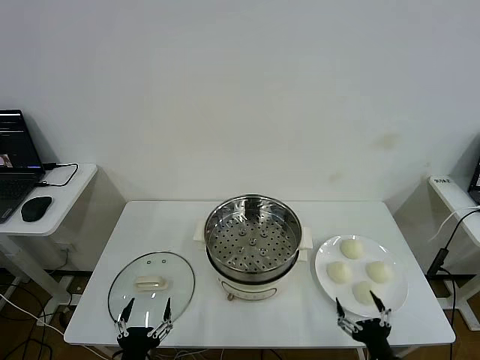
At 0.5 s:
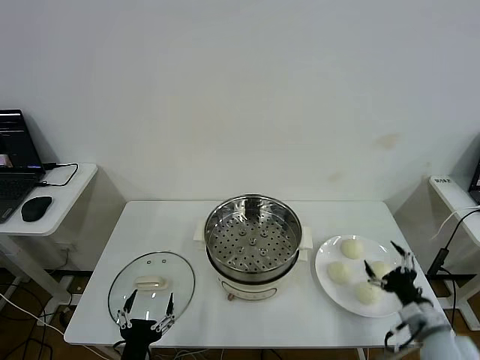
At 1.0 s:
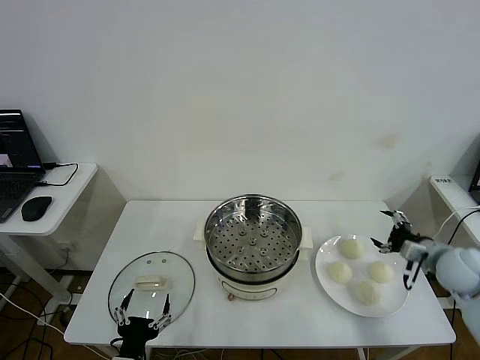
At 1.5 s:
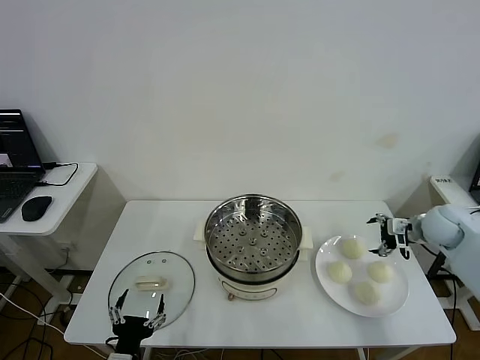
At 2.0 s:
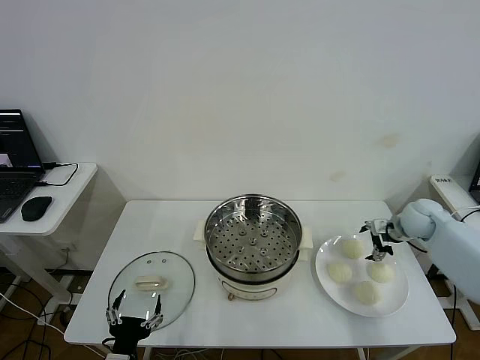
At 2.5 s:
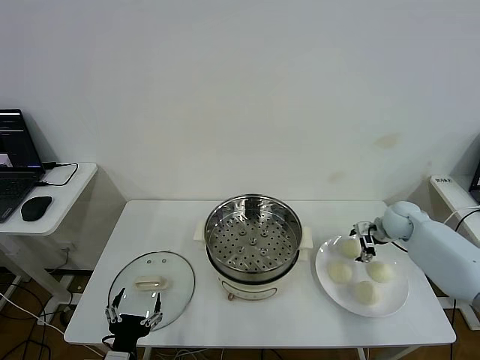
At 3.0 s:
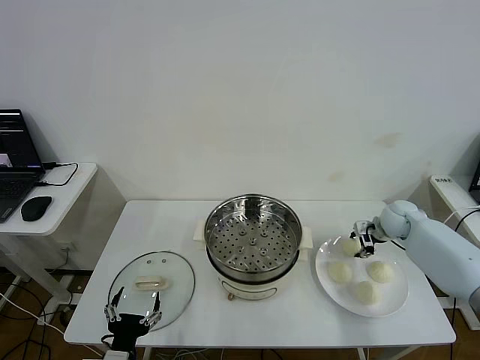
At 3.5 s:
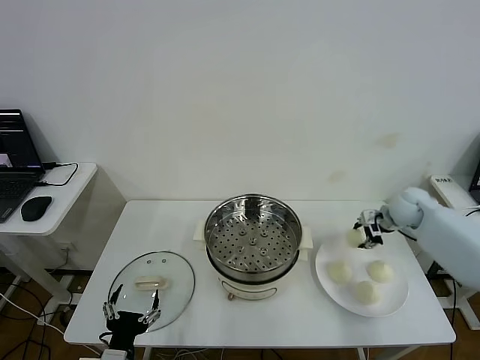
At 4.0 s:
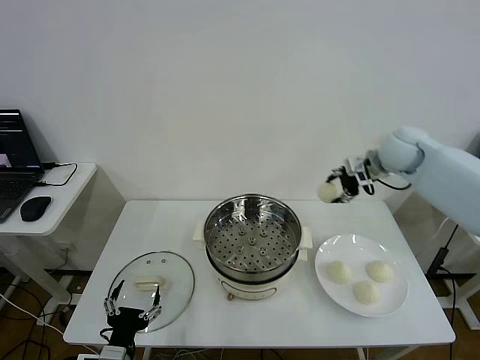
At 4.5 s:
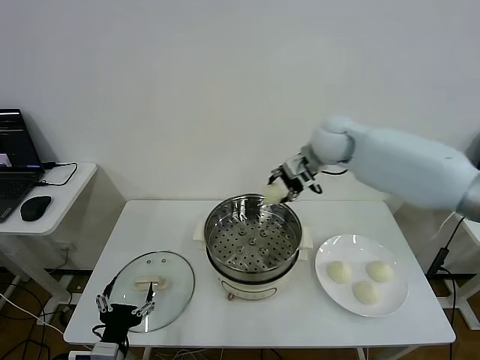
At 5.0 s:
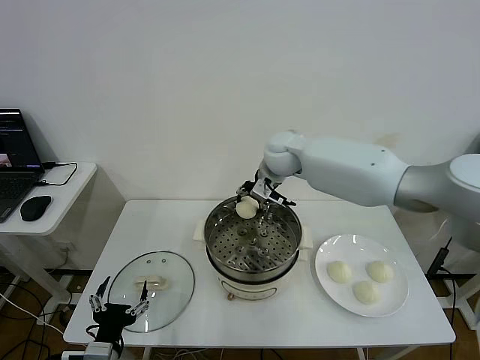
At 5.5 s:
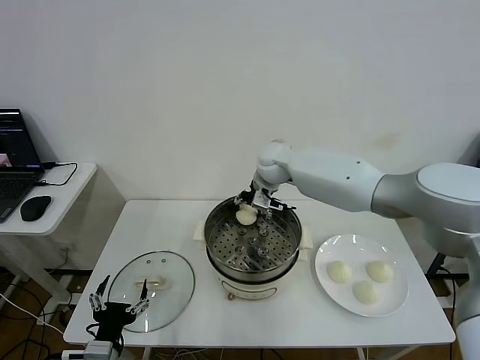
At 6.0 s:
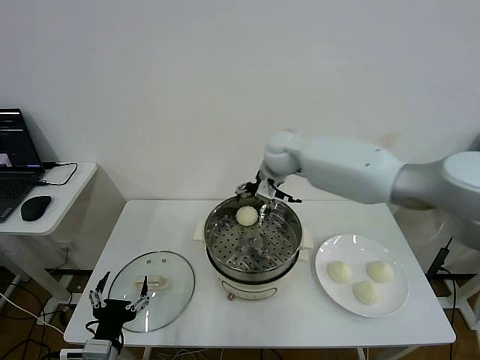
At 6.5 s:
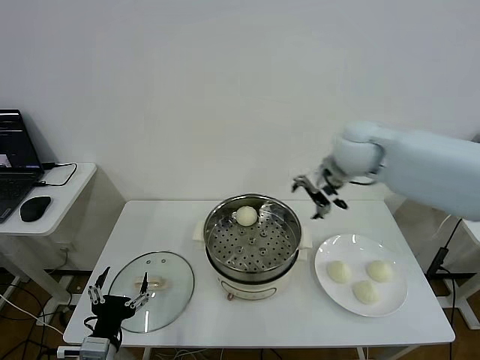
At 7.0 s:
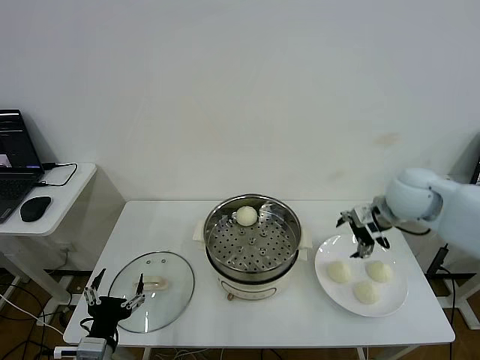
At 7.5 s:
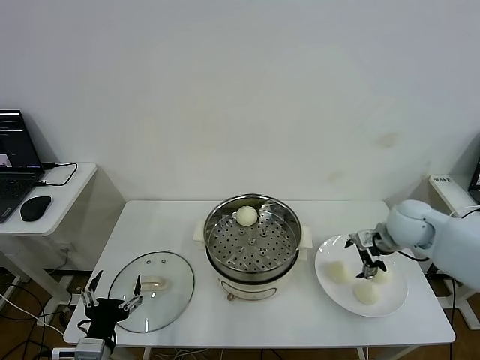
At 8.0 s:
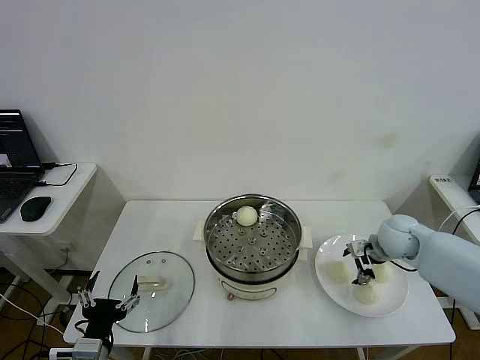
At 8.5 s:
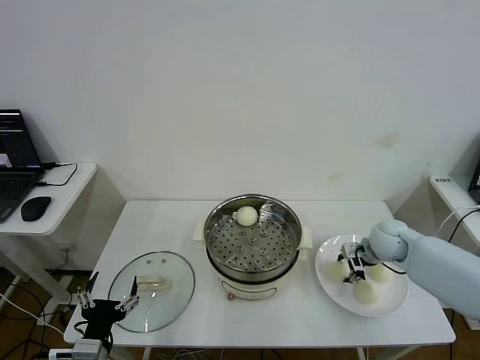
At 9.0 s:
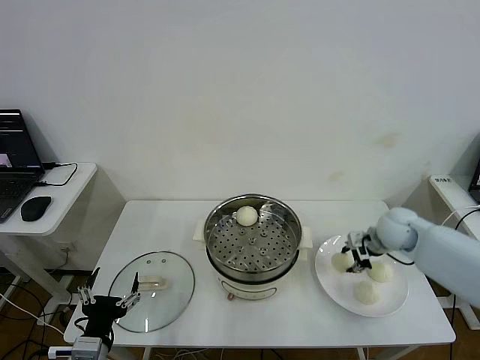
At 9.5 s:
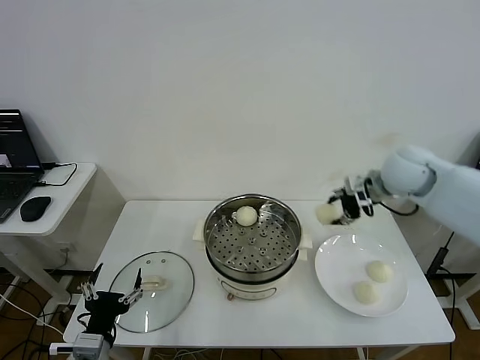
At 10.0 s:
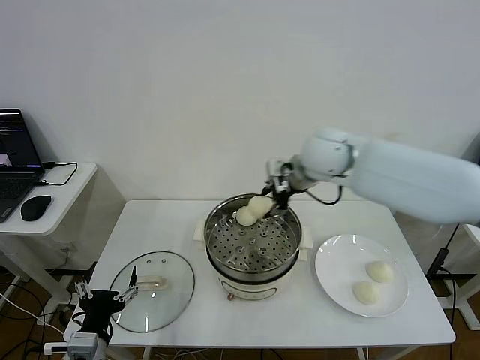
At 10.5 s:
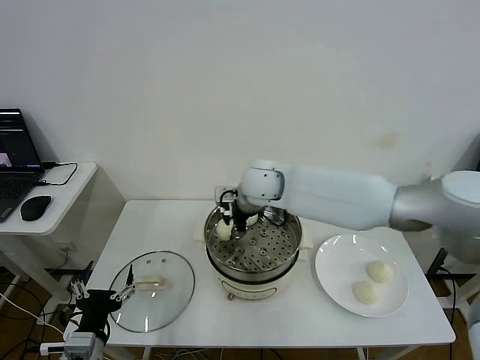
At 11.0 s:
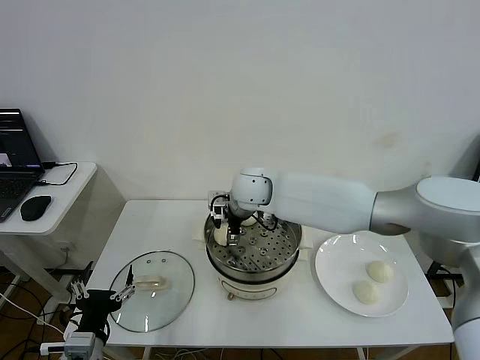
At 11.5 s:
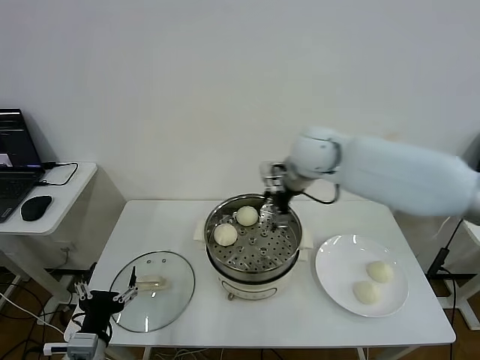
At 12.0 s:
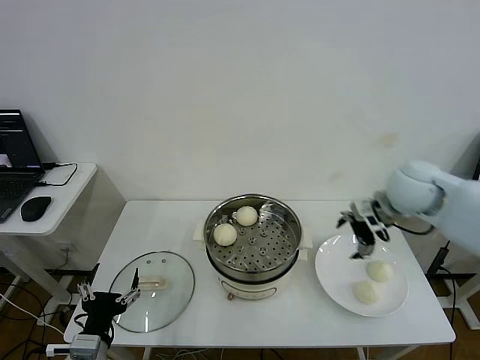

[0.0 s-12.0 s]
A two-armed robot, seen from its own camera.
Step, 0.0 to 2.5 s: Grasp the baozi in the plate with right gripper.
Step, 3.0 to 5.5 s: Place the baozi on the steamer with right gripper.
Step, 6.0 to 8.5 s: Grasp the baozi in the plate with right gripper.
Step, 9.0 to 10.5 s: Place the baozi on the steamer with right gripper.
2.0 to 4.0 s: The right gripper travels upward and to the left by roughly 20 cm, and closes.
4.0 to 6.0 s: The right gripper shifts roughly 25 cm to the left, and opens its fingers.
6.0 to 8.0 s: The right gripper goes about 35 cm to the right, downward and backward.
8.0 to 10.0 s: The right gripper goes roughly 30 cm to the left and upward, and closes.
10.0 to 12.0 s: The right gripper goes some 20 cm to the right, and opens its fingers.

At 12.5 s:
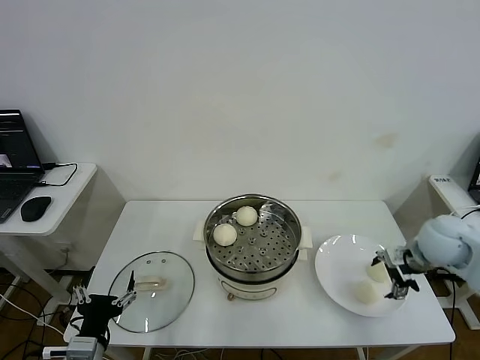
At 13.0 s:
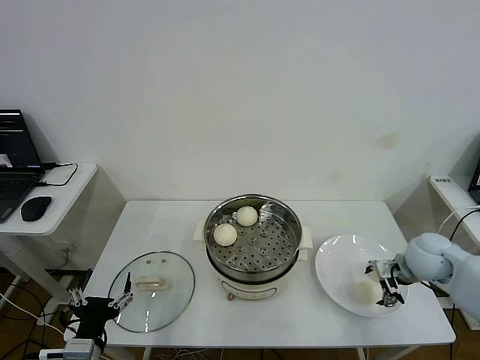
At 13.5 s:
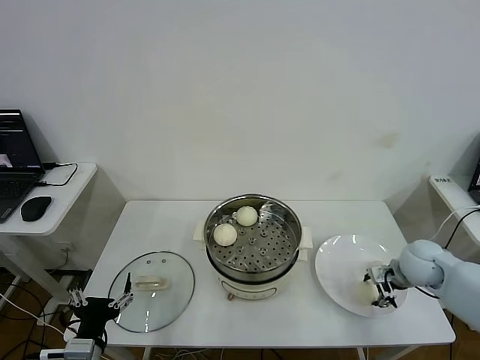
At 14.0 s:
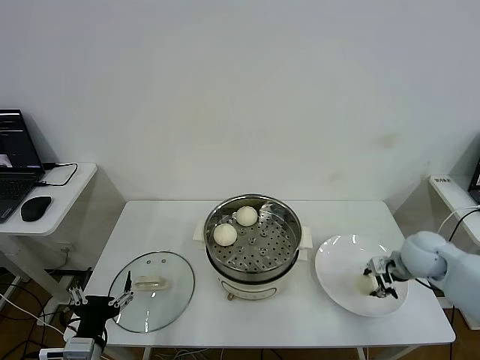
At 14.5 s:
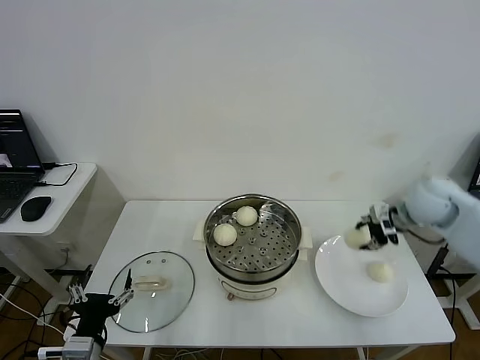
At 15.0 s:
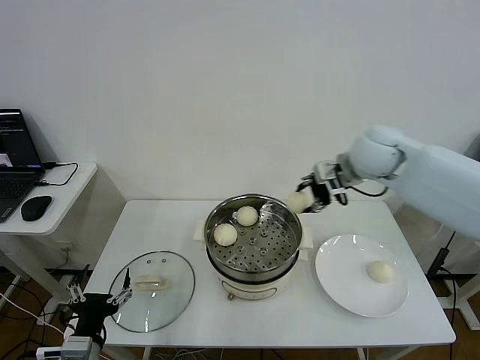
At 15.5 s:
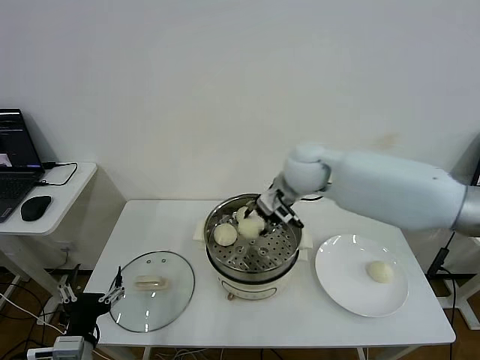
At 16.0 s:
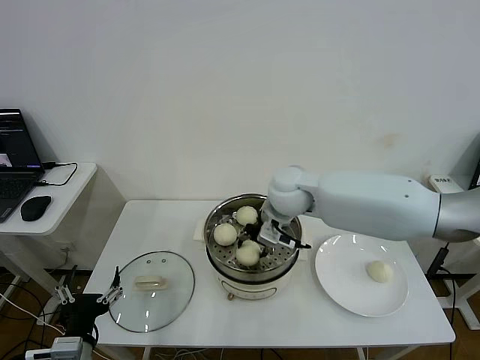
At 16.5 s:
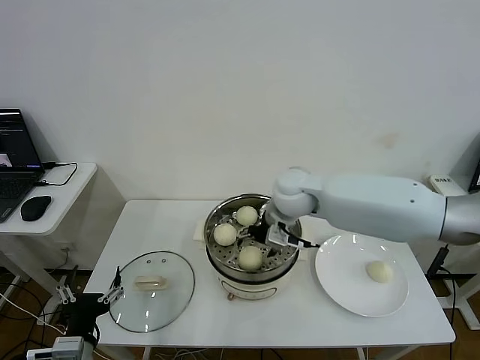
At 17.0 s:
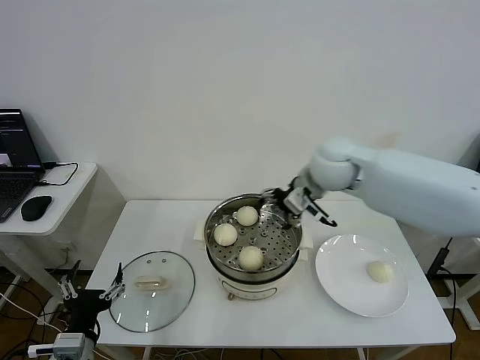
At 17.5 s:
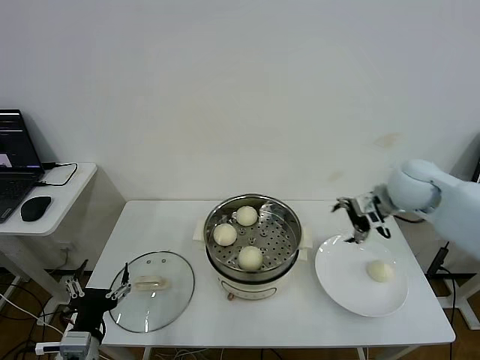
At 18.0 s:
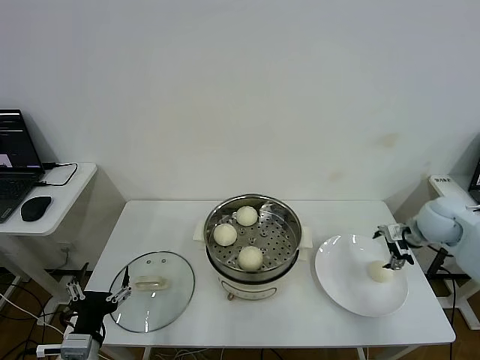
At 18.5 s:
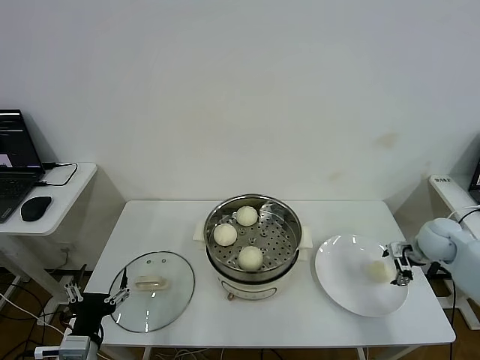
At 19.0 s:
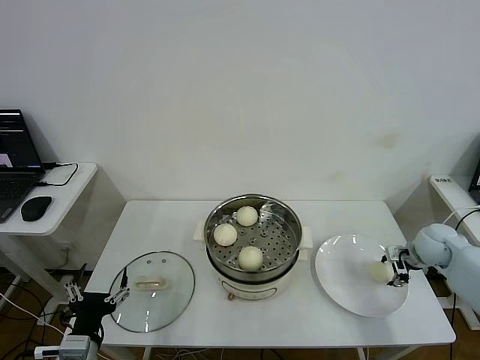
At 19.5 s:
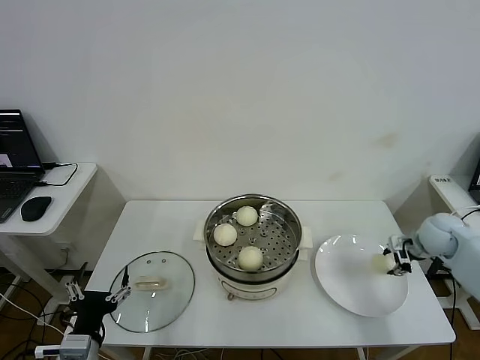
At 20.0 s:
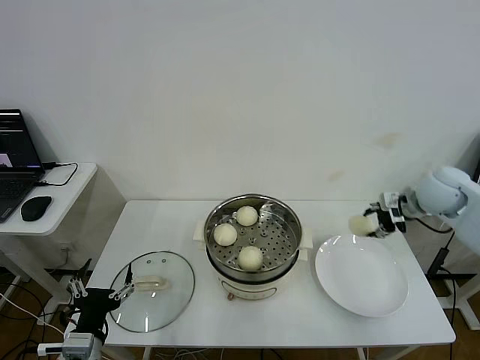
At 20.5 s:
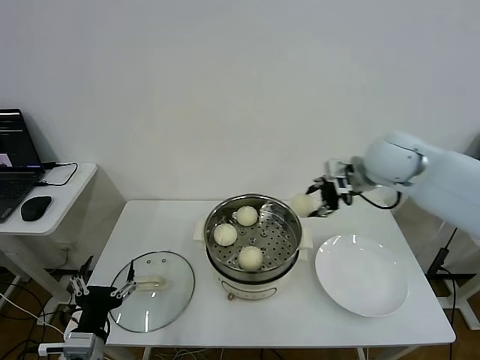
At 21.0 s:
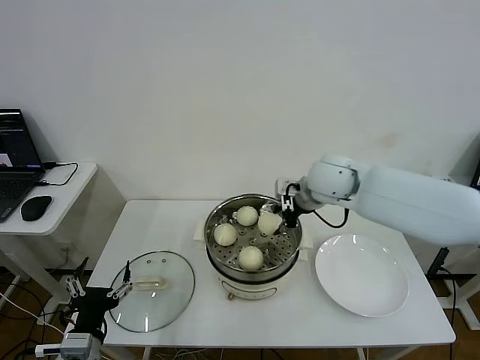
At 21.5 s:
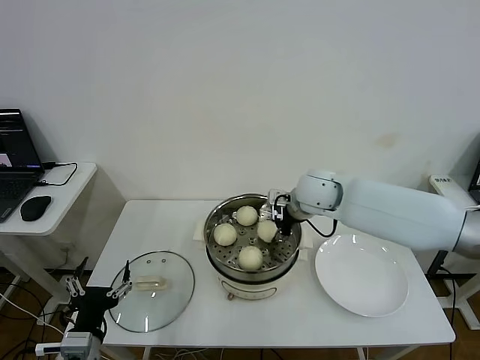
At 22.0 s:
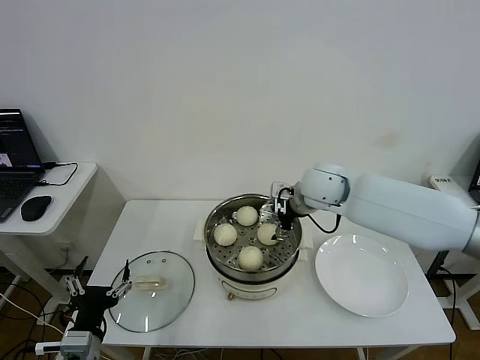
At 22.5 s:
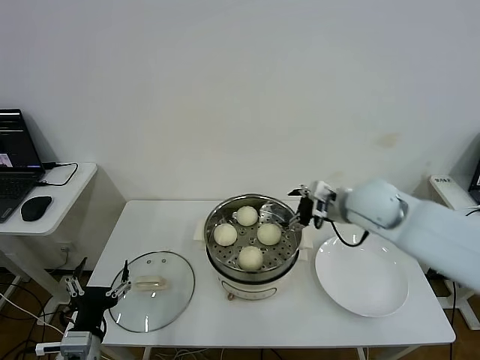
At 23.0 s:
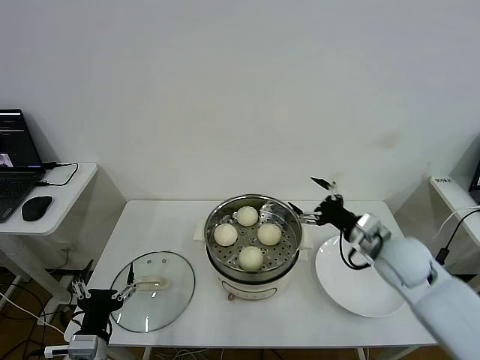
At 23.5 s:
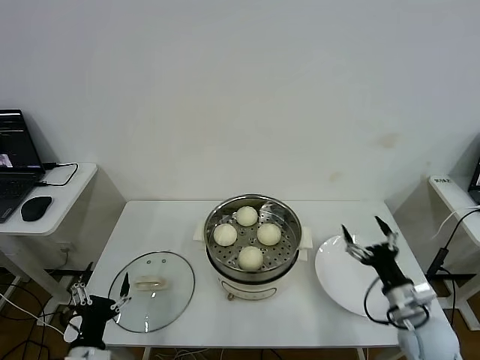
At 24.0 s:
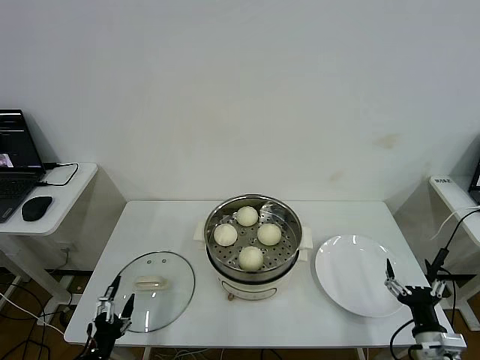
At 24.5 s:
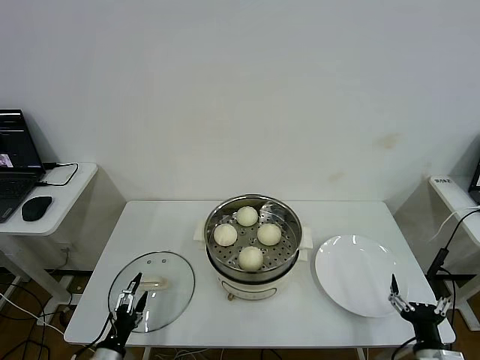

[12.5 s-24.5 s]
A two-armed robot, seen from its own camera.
Step, 14.0 to 16.0 s: Place the baozi on the steamer with right gripper.
Step, 16.5 to 19.0 s: Grasp the baozi in the plate with right gripper.
Step, 19.5 to 21.5 s: Place the baozi on the steamer with right gripper.
12.5 to 14.5 s: The right gripper moves forward, roughly 5 cm, goes downward and returns, some 10 cm each way, and closes up.
14.5 to 16.5 s: The right gripper moves to the left, some 30 cm, and opens.
16.5 to 18.5 s: The right gripper travels to the right by about 35 cm.
18.5 to 20.5 s: The right gripper shifts some 30 cm upward and to the left, and closes.
20.5 to 22.5 s: The right gripper goes about 5 cm downward, and opens up.
22.5 to 24.5 s: The left gripper is displaced downward by roughly 10 cm, while the right gripper heads backward, downward and to the right, covering approximately 40 cm.

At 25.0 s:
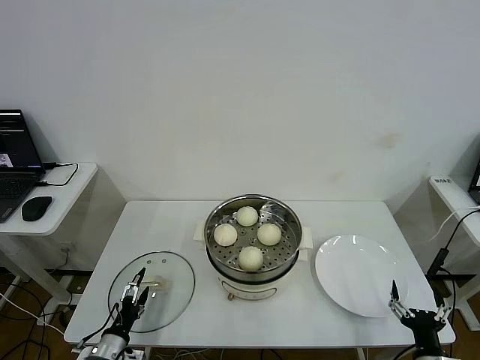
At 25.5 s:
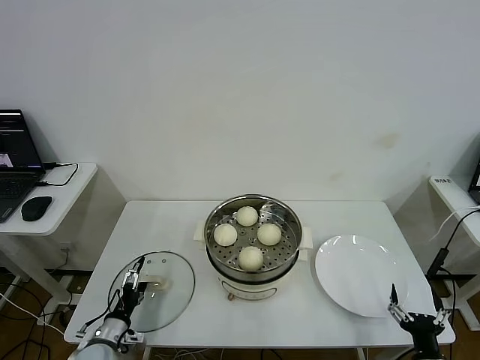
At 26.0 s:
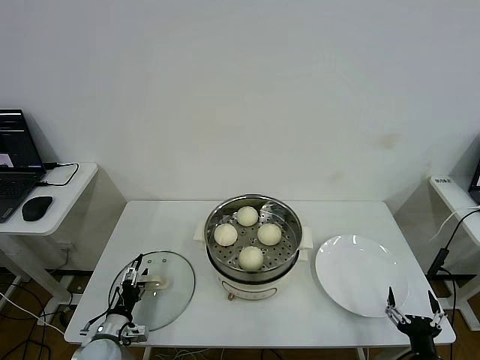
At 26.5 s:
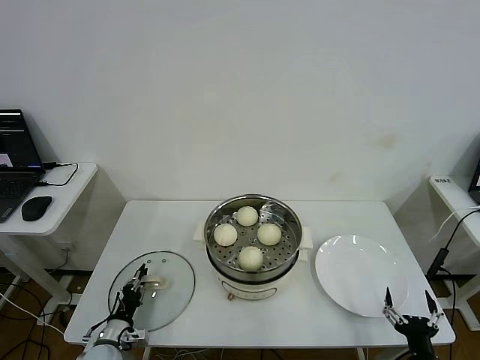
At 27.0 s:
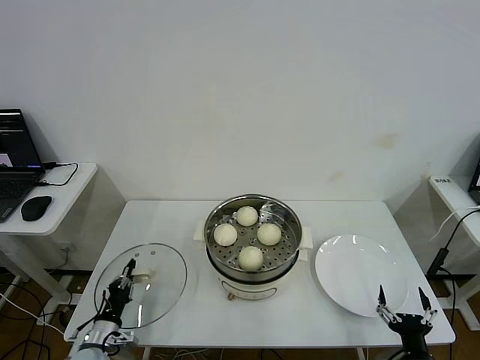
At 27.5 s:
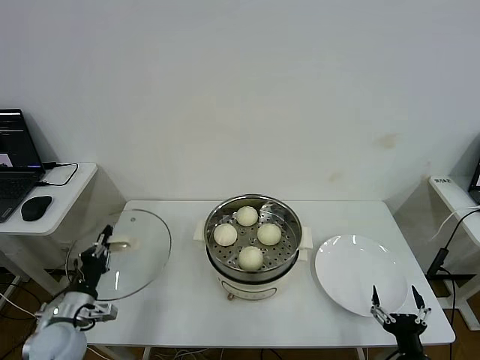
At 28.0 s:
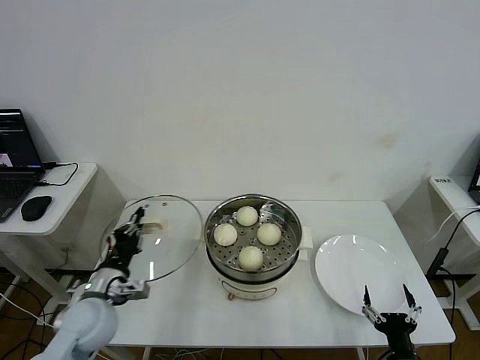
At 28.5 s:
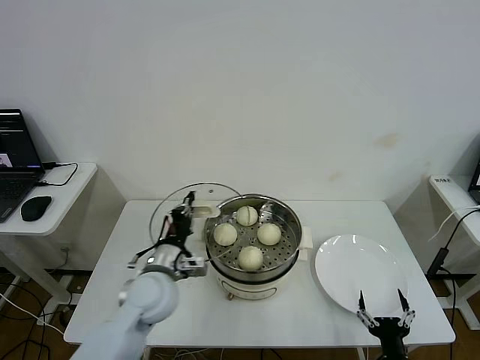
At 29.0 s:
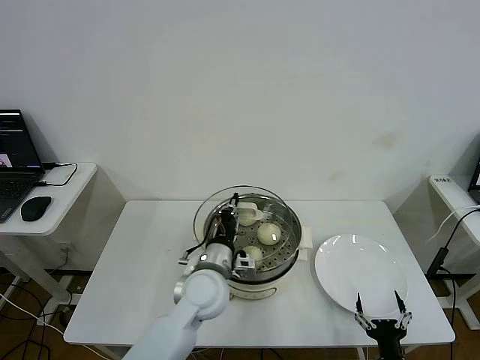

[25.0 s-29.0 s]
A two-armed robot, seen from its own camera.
25.0 to 27.0 s: The left gripper closes.
27.0 to 29.0 s: The left gripper moves to the right and upward, roughly 35 cm.
